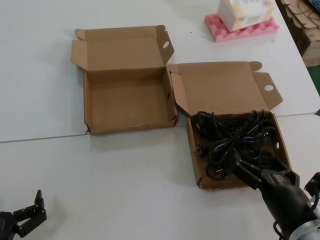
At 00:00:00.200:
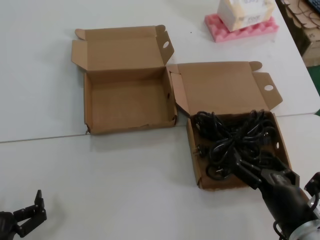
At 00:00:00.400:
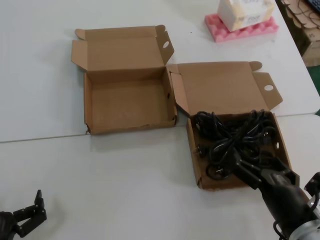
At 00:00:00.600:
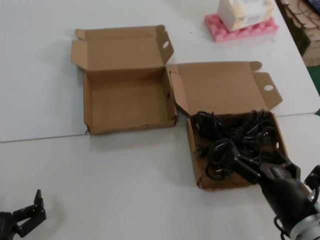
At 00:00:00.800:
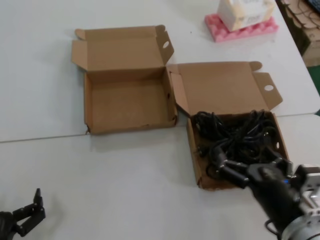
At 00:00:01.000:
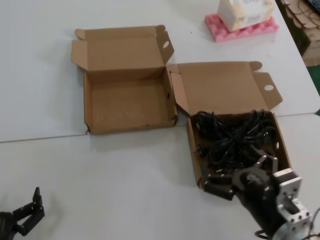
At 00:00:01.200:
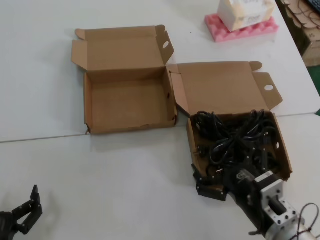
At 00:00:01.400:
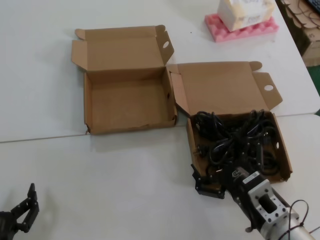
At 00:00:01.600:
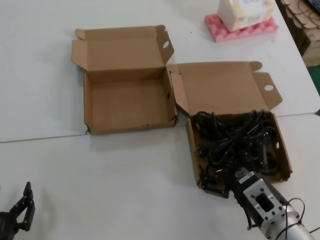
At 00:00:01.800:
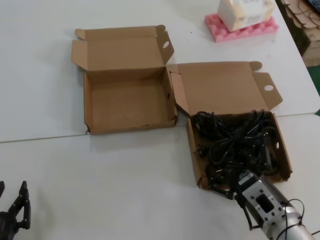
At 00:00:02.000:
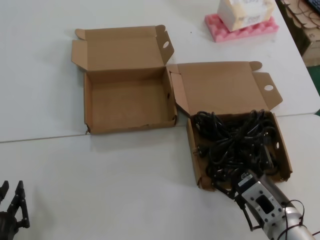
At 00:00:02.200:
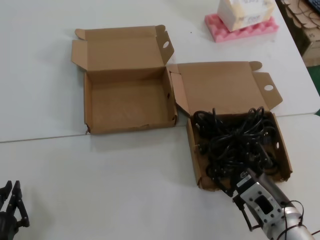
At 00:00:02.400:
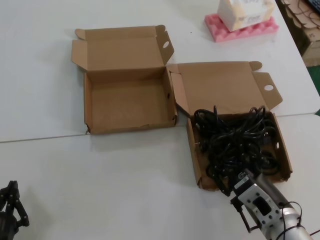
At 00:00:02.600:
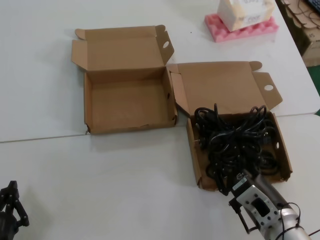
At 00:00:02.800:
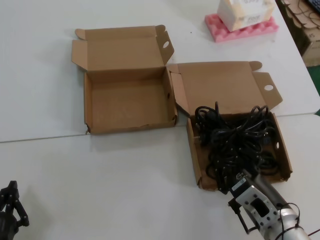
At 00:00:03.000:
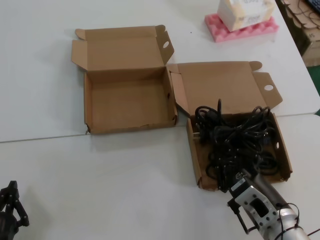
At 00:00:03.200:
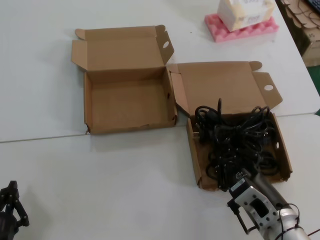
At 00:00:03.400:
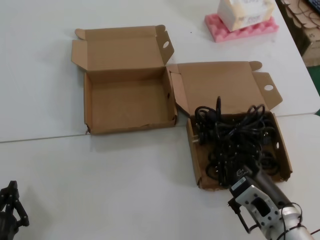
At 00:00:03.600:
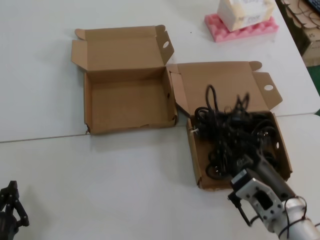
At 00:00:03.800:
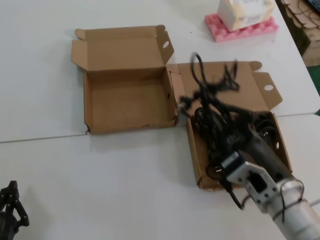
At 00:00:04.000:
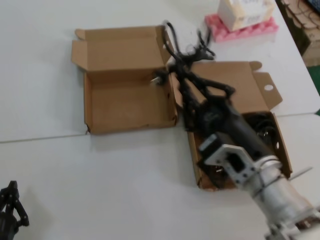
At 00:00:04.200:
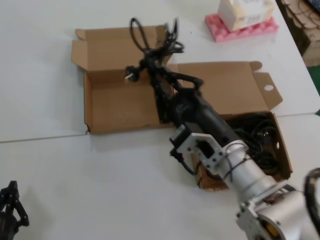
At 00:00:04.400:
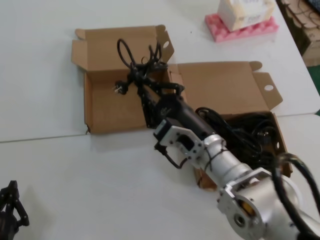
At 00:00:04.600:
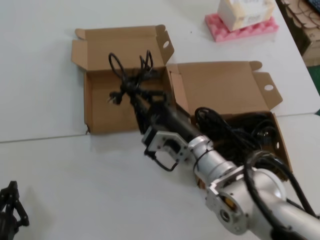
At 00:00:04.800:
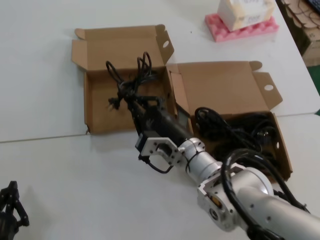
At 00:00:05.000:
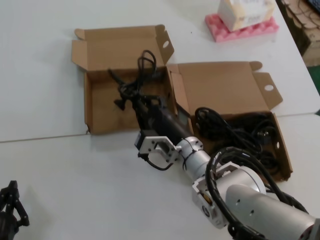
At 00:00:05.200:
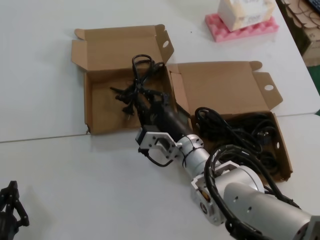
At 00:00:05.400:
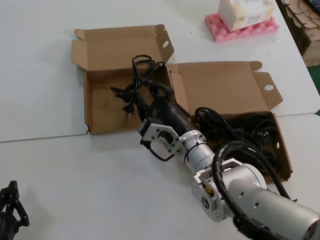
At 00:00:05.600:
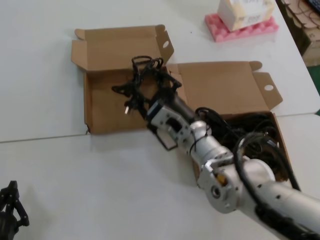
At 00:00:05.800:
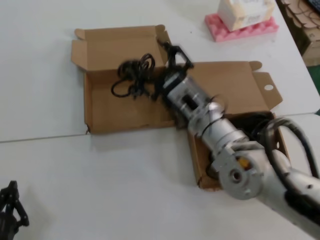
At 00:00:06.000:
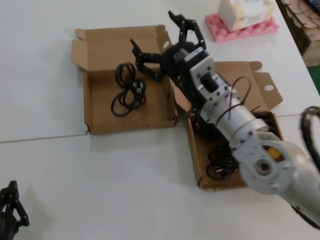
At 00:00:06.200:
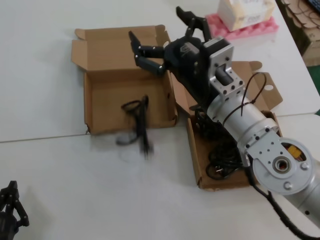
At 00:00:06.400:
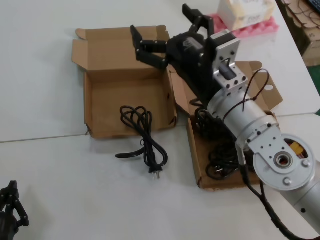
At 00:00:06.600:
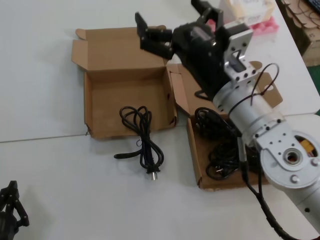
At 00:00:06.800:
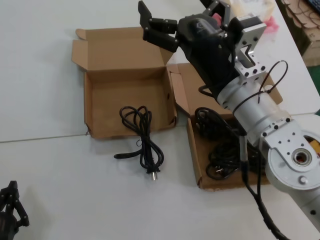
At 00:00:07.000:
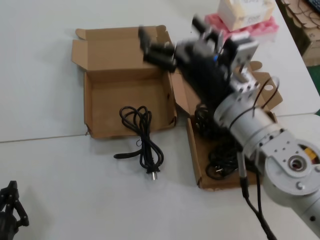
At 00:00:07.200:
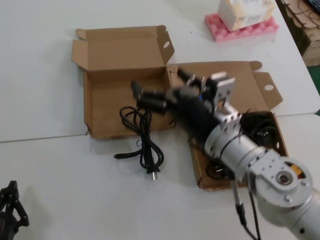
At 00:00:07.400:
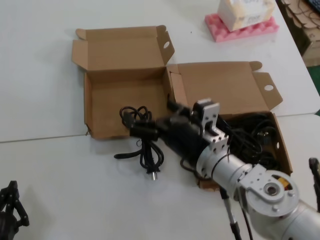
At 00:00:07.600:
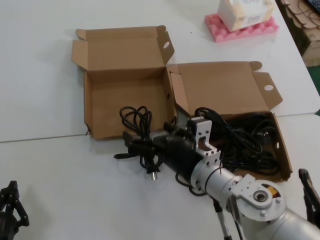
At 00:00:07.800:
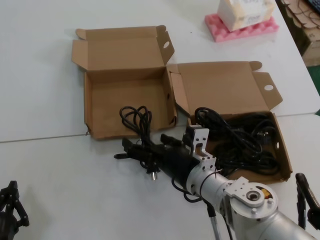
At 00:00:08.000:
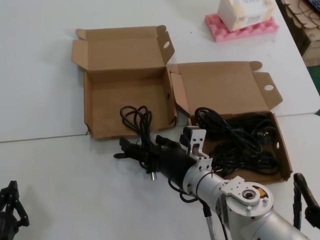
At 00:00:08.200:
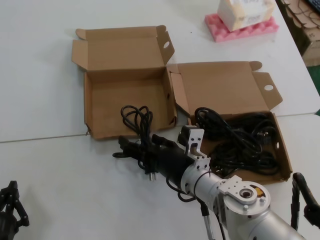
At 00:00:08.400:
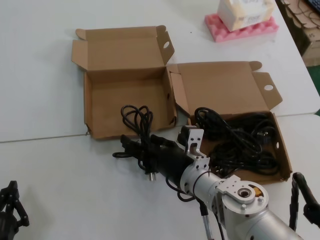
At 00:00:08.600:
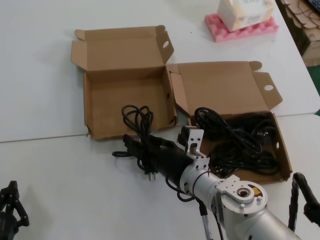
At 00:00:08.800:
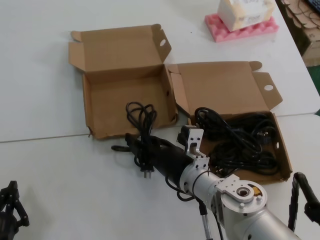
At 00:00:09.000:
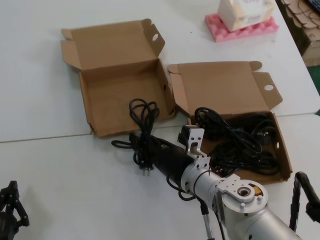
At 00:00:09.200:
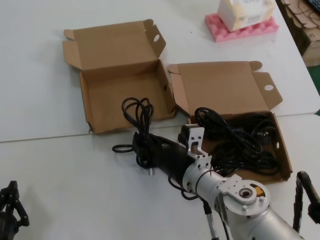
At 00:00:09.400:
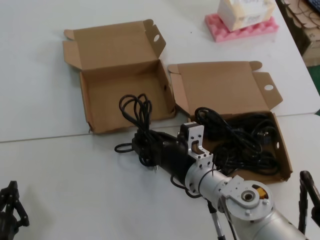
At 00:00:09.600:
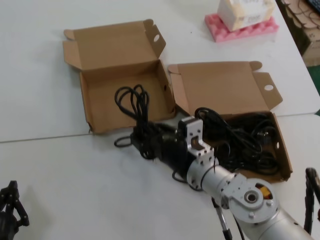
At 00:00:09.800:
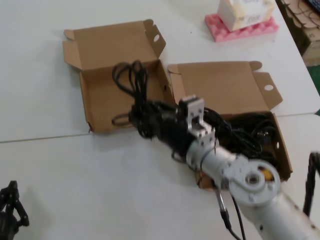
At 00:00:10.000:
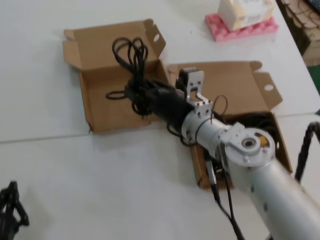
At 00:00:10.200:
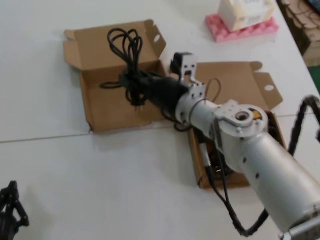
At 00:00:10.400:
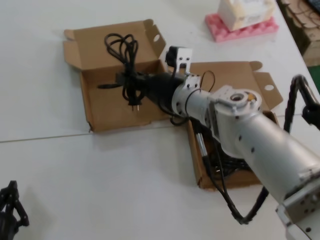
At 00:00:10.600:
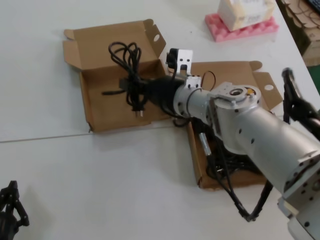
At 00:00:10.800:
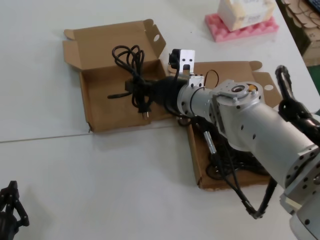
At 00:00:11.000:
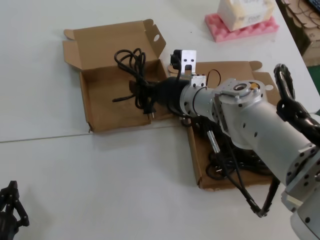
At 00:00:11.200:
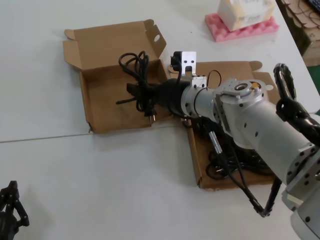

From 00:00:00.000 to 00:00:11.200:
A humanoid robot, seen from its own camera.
Task of the whole recording: Pick up the power cord from the box containing it and place it in another box.
Step, from 00:00:00.000 to 00:00:03.600: Grasp the data cable.
Step, from 00:00:03.800 to 00:00:06.200: Place the data cable in the another box.
From 00:00:01.600 to 00:00:03.200: There are only small adjustments of the hands.
From 00:00:03.200 to 00:00:04.800: The right hand shifts about 20 cm forward and to the left.
From 00:00:04.800 to 00:00:06.400: The right hand goes approximately 15 cm upward.
From 00:00:06.400 to 00:00:08.000: The right hand moves downward, about 15 cm.
From 00:00:08.000 to 00:00:09.600: There are only small adjustments of the hands.
From 00:00:09.600 to 00:00:11.200: The right hand travels upward and forward by some 15 cm.

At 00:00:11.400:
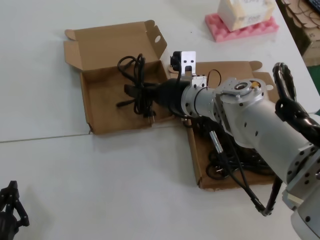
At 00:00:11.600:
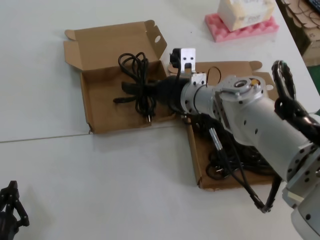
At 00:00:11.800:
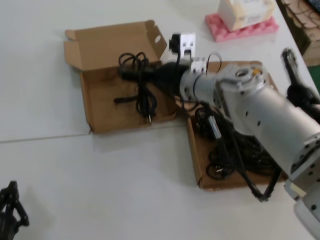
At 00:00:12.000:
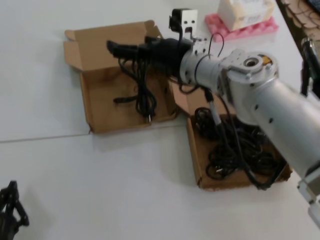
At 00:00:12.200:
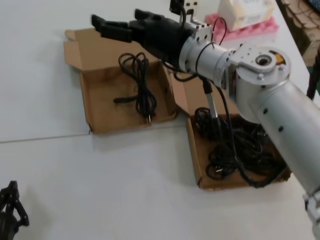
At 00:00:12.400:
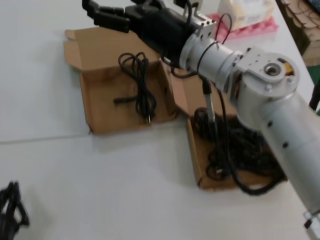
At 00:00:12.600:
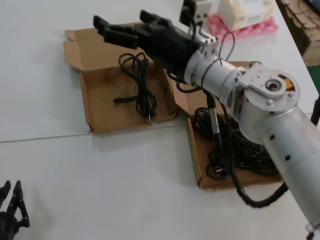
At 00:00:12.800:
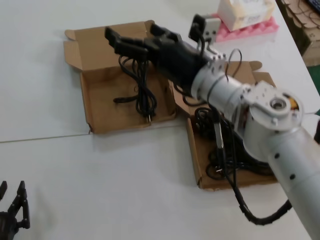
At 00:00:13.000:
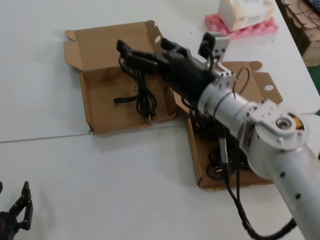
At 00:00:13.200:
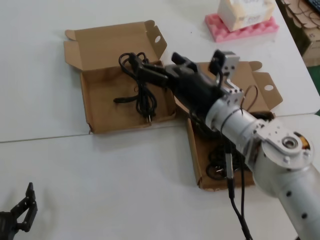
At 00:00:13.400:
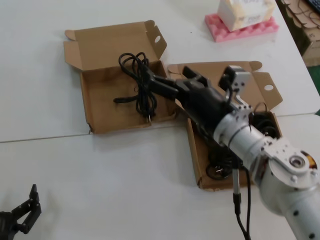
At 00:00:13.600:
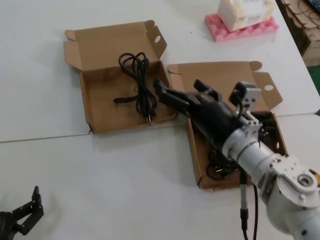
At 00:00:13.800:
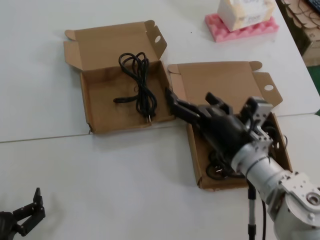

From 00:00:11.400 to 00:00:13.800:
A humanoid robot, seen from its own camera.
Task of the whole recording: Pick up the power cord from the box containing it and place it in another box.
From 00:00:11.400 to 00:00:12.600: The right hand shifts about 10 cm upward and backward.
From 00:00:12.600 to 00:00:13.800: The right hand is displaced downward, backward and to the right by roughly 20 cm.
